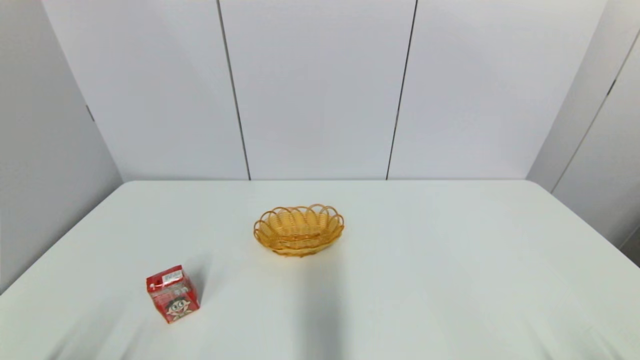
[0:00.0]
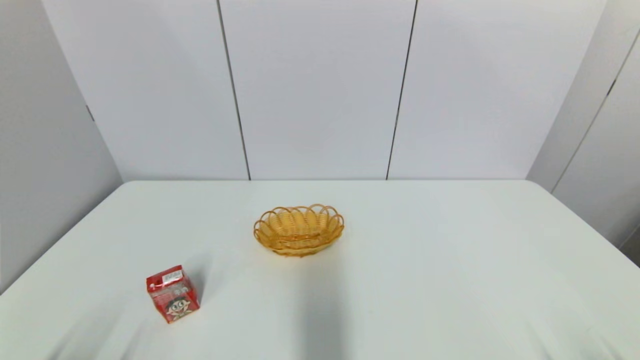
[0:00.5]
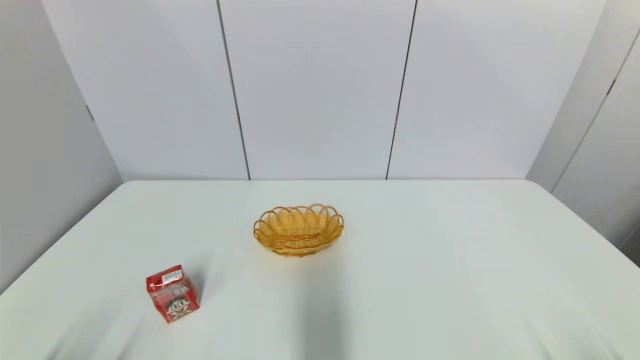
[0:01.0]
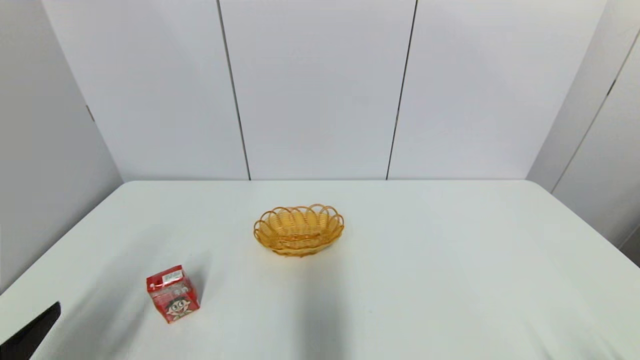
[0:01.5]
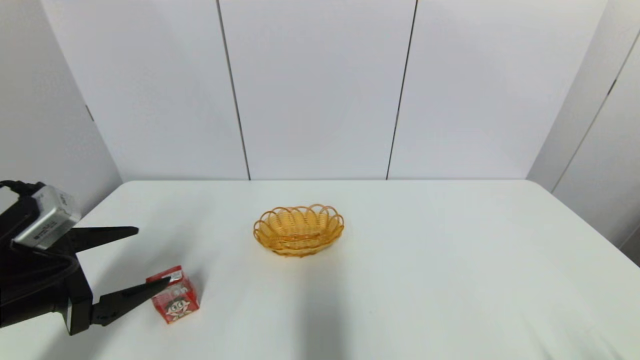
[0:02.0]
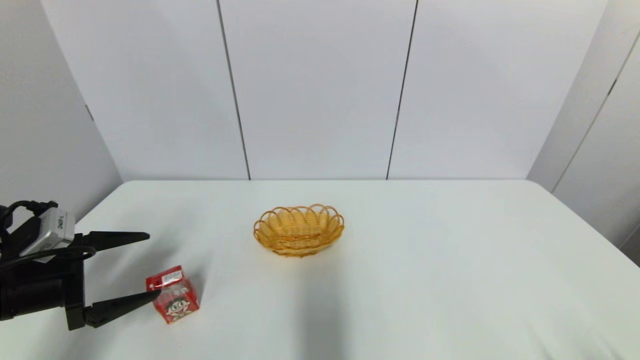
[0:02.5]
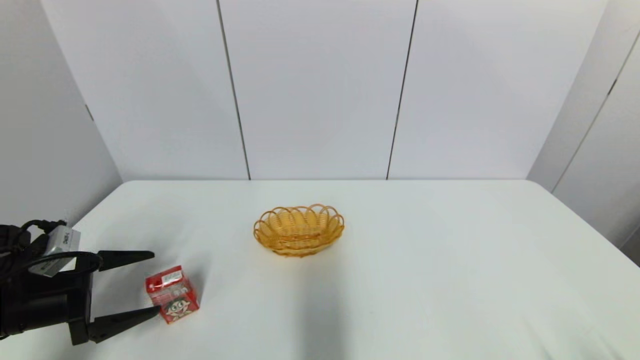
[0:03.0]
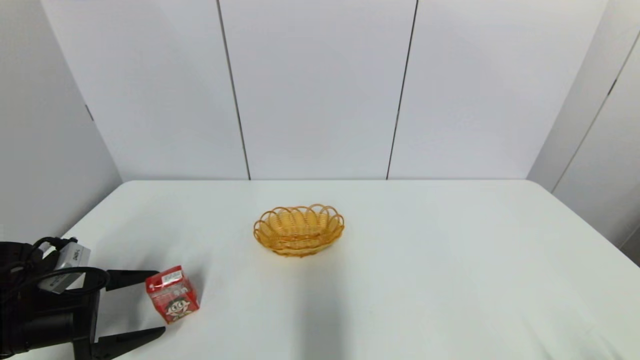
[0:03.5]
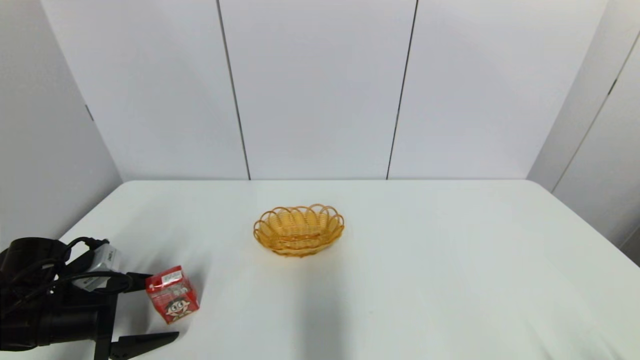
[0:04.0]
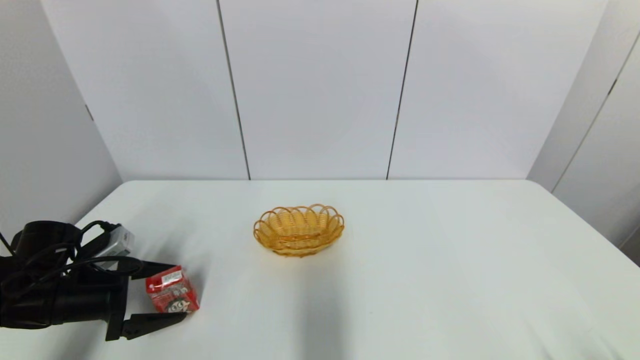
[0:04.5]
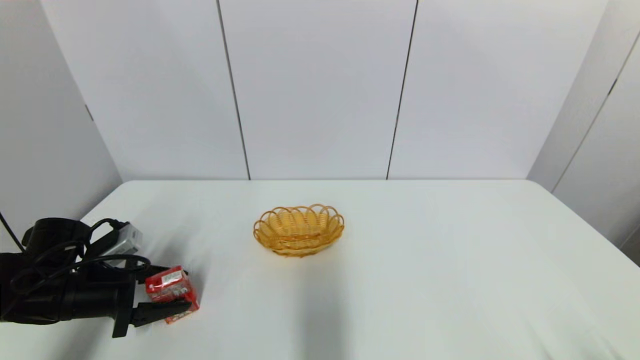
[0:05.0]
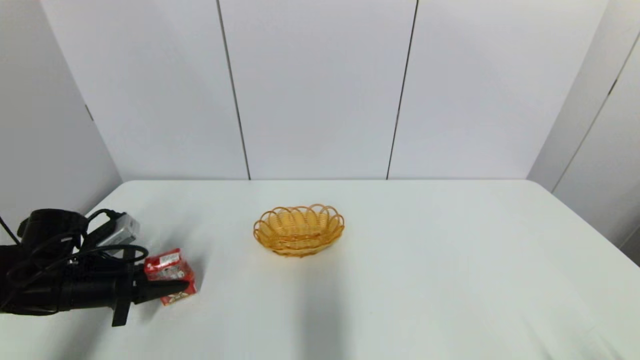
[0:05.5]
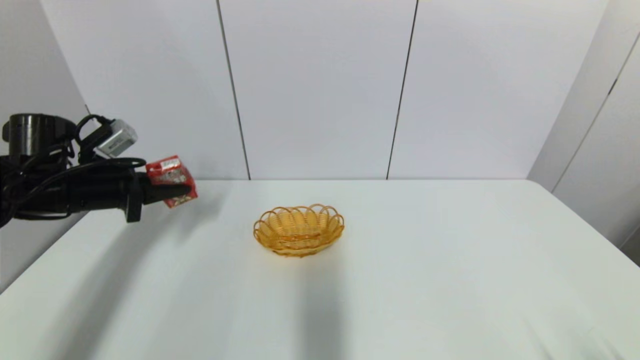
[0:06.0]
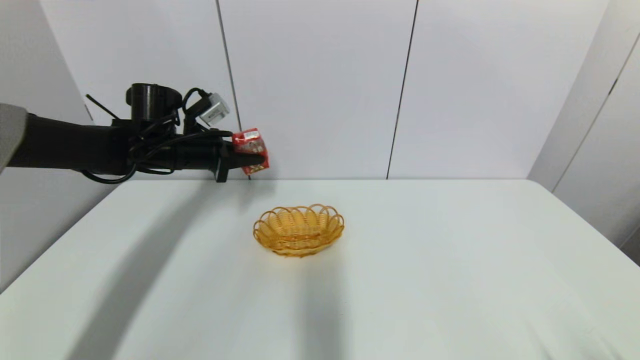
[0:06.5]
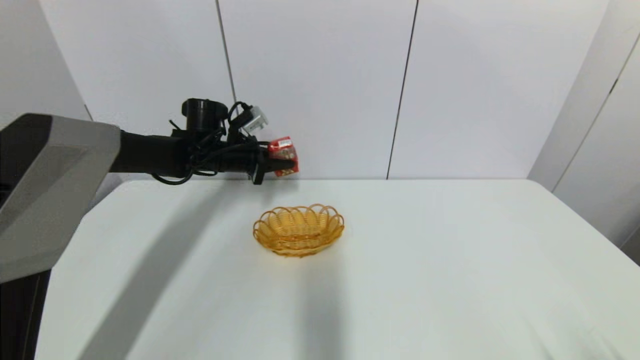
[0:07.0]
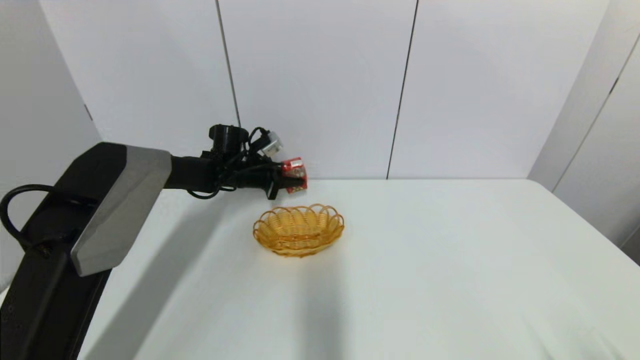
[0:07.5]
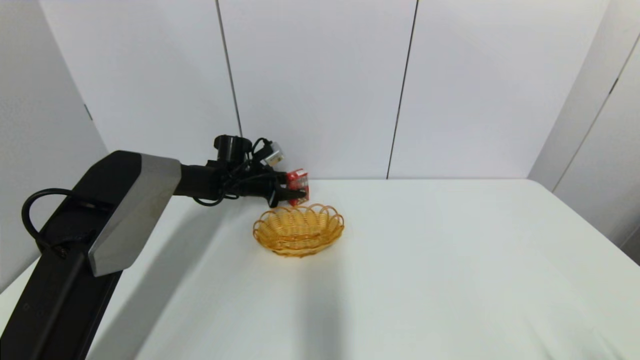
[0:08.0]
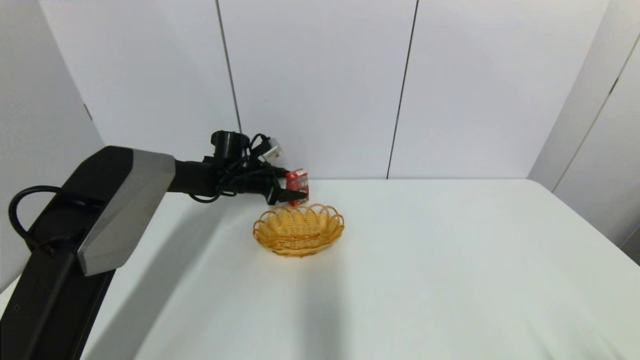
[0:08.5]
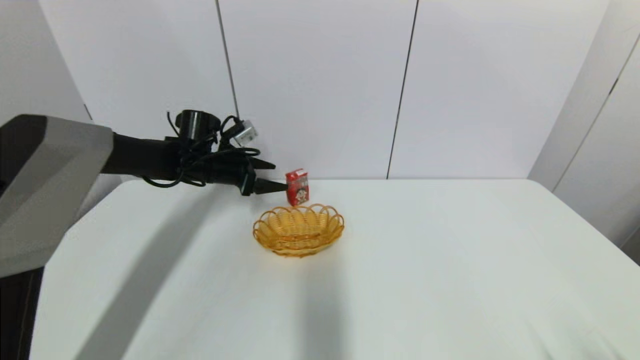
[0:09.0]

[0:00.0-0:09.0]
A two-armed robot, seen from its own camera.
Step, 0:01.5 to 0:05.0: Grasp the wangzai milk with left gripper.
Step, 0:05.5 to 0:08.0: Place the wangzai milk on the table with left gripper.
0:00.0 to 0:02.0: The left gripper goes roughly 20 cm forward and upward.
0:02.0 to 0:04.5: The left gripper shifts roughly 10 cm downward and forward.
0:04.5 to 0:07.0: The left gripper goes roughly 30 cm forward, to the right and upward, and closes.
0:07.0 to 0:09.0: The left gripper goes downward and returns, roughly 10 cm each way, and opens up.

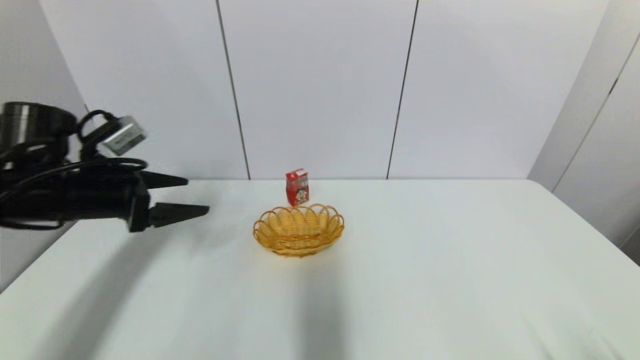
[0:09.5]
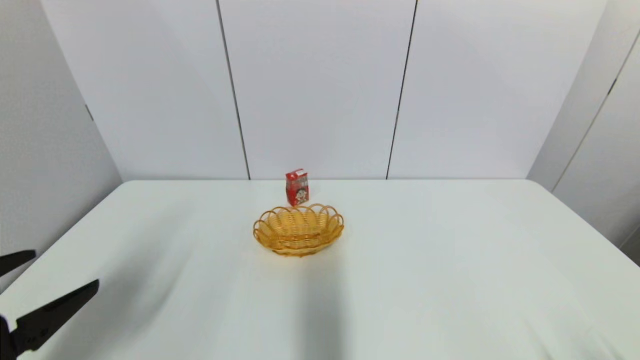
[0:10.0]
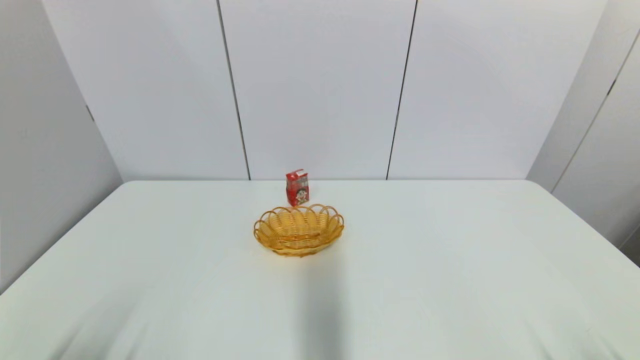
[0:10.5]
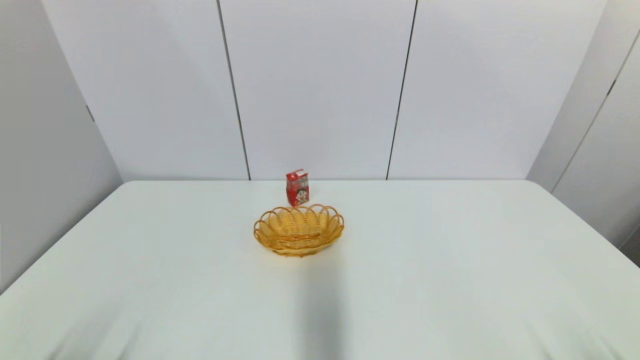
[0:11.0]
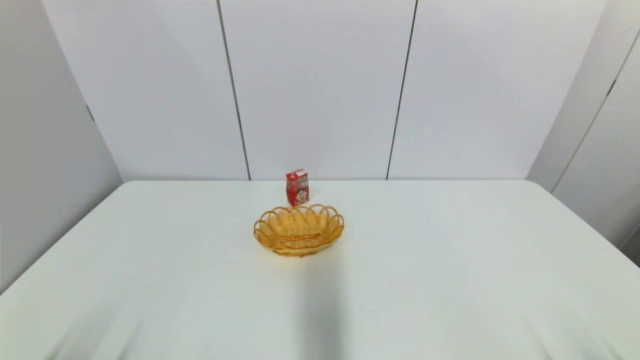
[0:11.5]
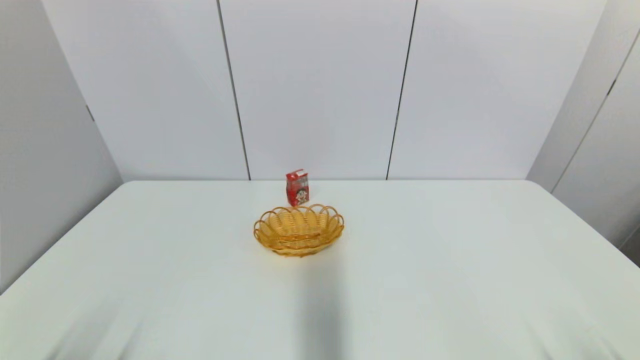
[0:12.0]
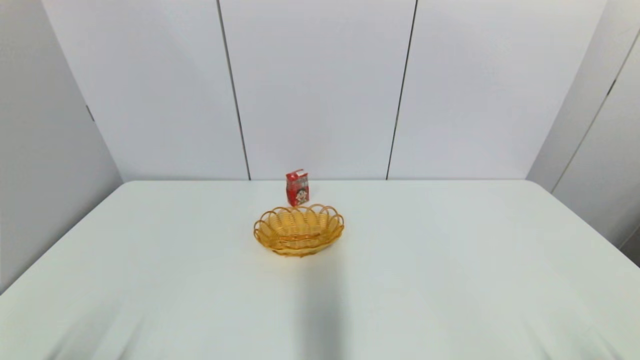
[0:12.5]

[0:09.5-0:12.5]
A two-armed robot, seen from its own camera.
0:09.5 to 0:11.0: The left gripper heads backward and downward, covering some 30 cm.
0:11.0 to 0:12.5: Neither gripper changes place.

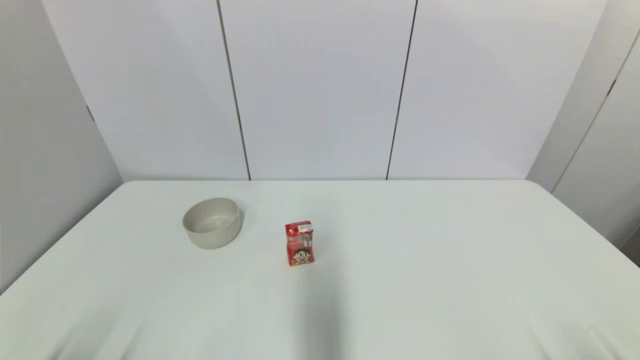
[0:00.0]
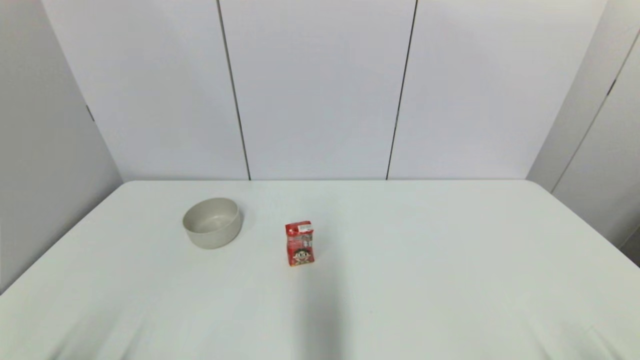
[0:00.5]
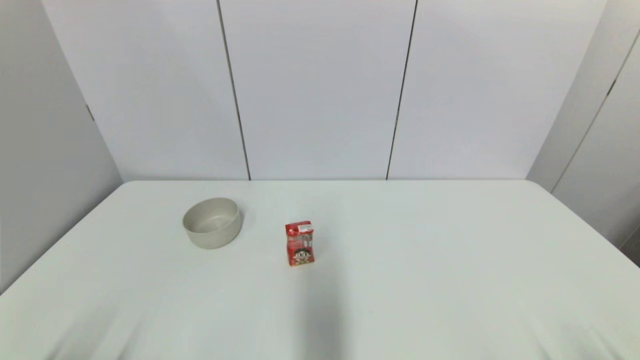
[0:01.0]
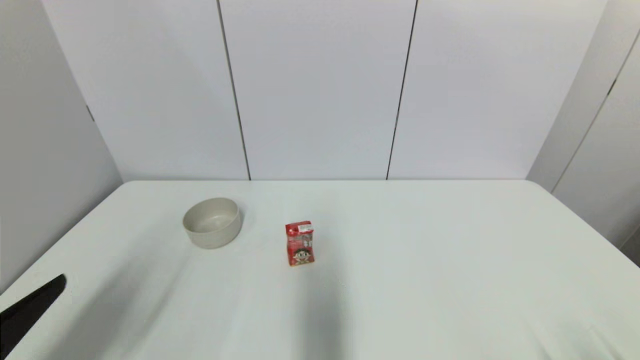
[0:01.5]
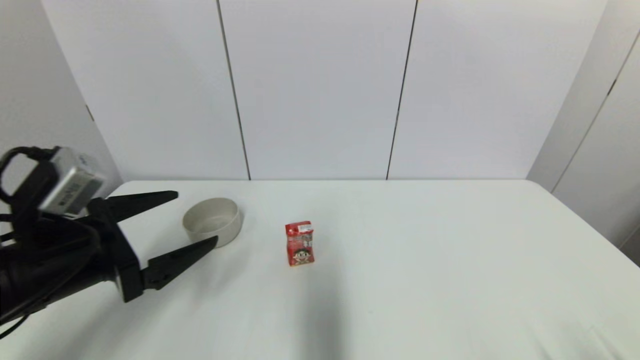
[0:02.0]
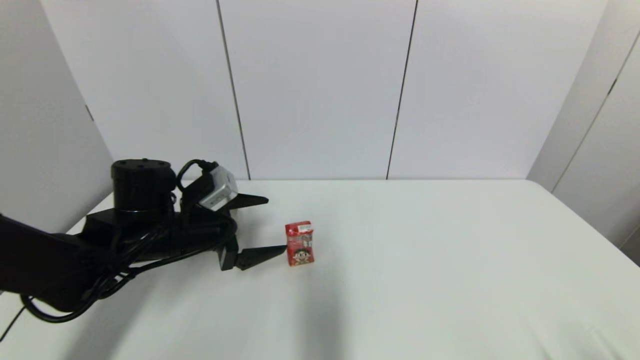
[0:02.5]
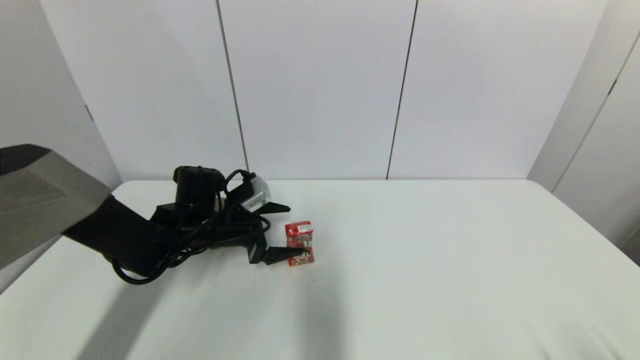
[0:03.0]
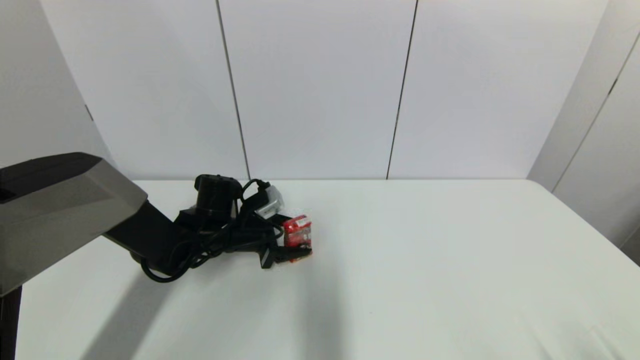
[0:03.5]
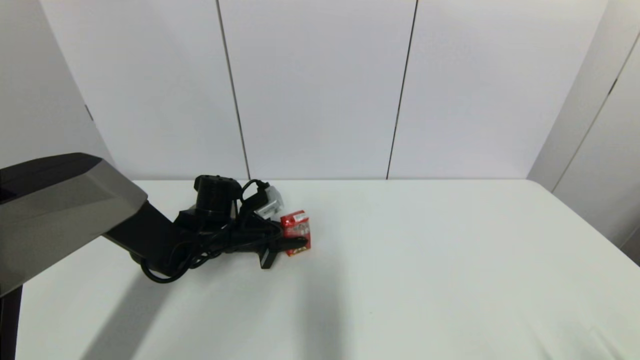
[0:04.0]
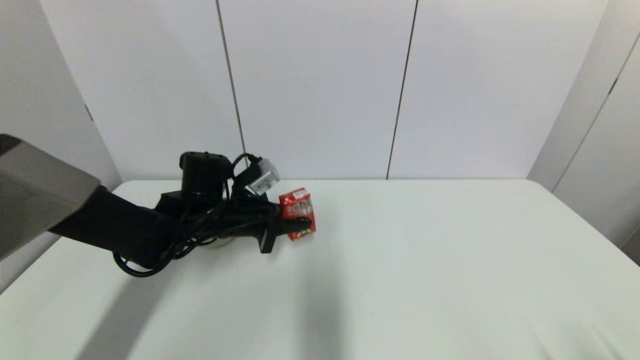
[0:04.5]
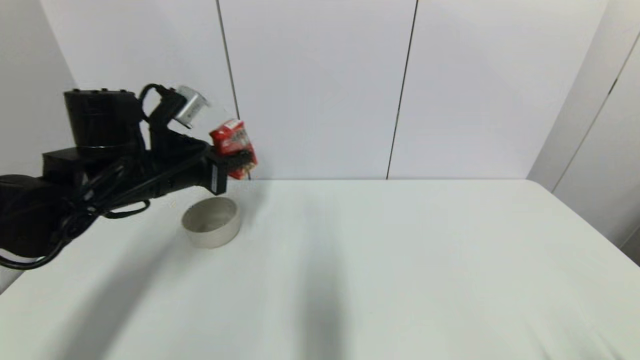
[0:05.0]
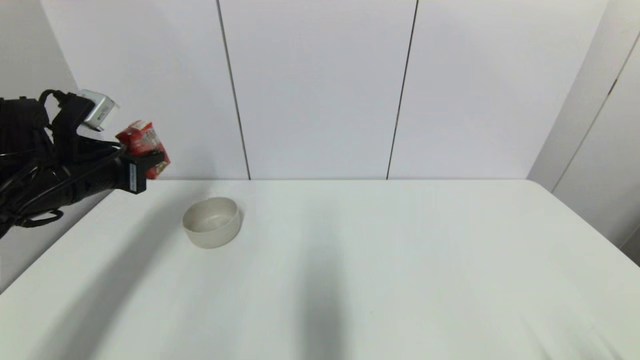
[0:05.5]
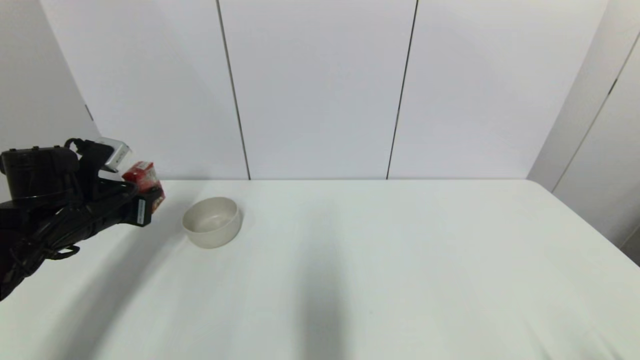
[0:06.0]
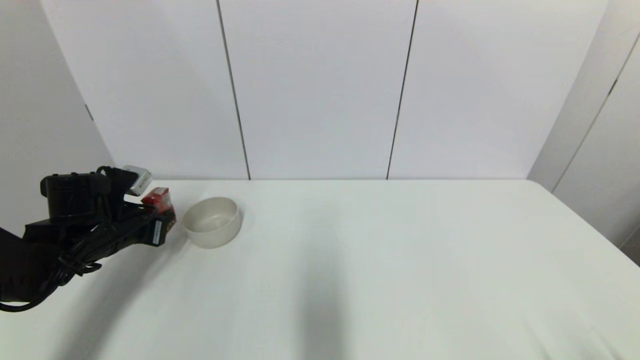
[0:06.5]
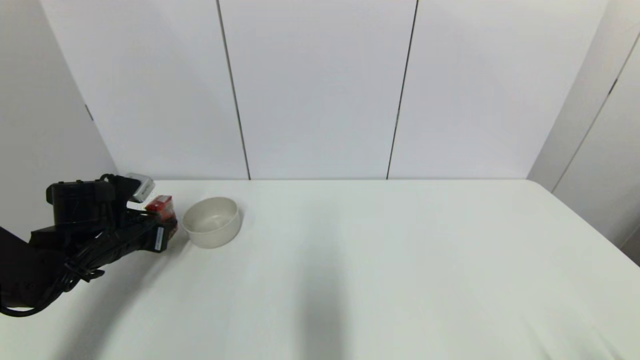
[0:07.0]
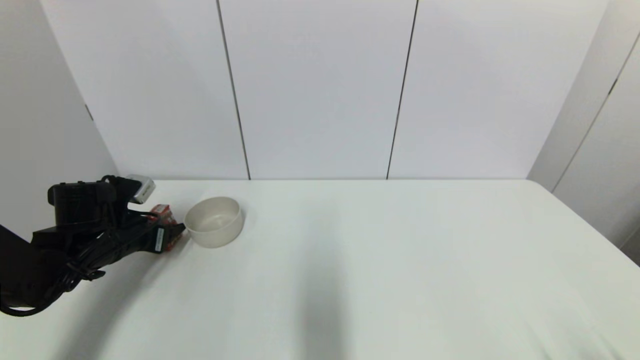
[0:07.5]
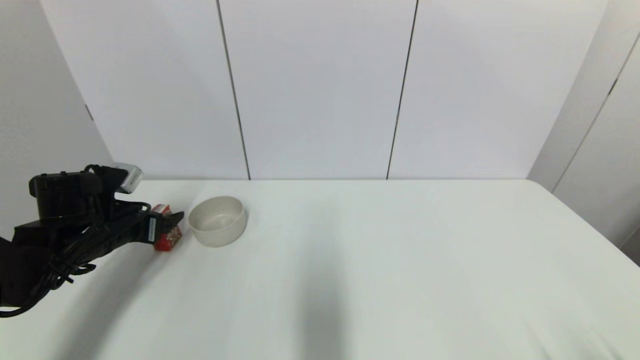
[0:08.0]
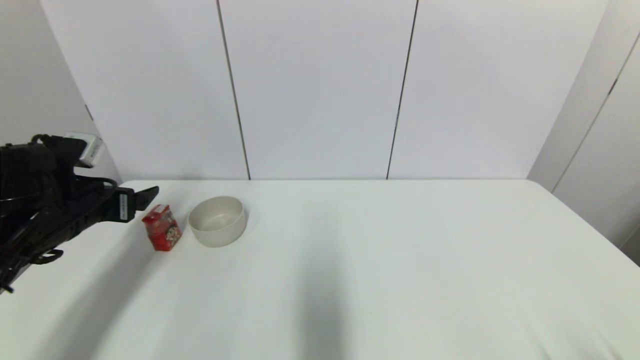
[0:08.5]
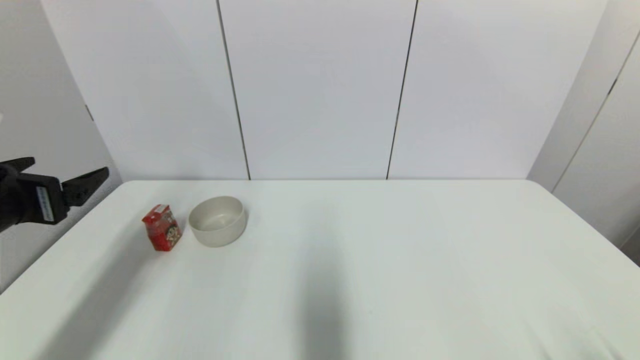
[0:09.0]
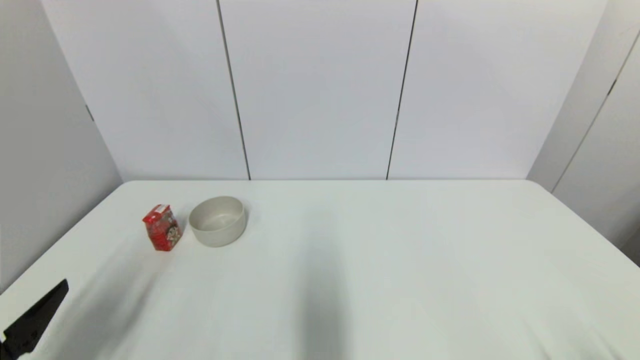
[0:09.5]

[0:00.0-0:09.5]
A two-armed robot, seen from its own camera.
Step, 0:01.5 to 0:03.5: Grasp the wangzai milk with left gripper.
Step, 0:04.0 to 0:07.0: Place the wangzai milk on the table with left gripper.
0:00.0 to 0:02.0: The left gripper shifts roughly 20 cm forward and upward.
0:02.0 to 0:04.0: The left gripper goes roughly 25 cm forward, downward and to the right, and closes.
0:04.0 to 0:05.5: The left gripper moves upward, to the left and backward, about 20 cm.
0:05.5 to 0:07.5: The left gripper heads downward, covering some 15 cm, and opens.
0:07.5 to 0:09.5: The left gripper moves backward, some 25 cm.
